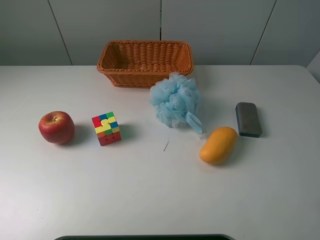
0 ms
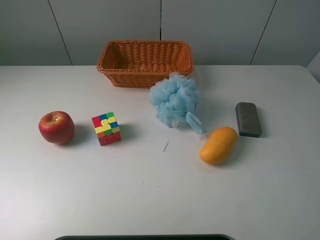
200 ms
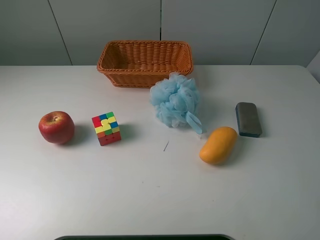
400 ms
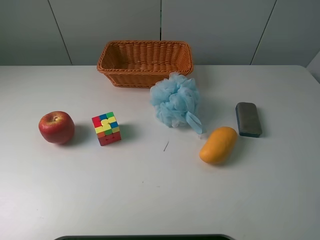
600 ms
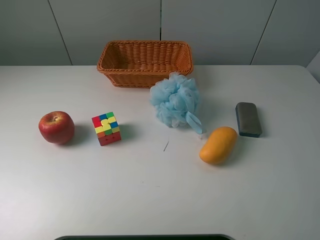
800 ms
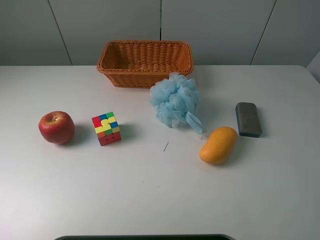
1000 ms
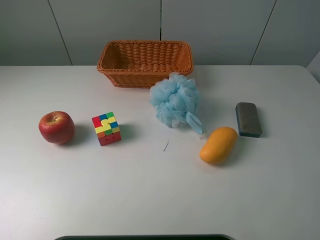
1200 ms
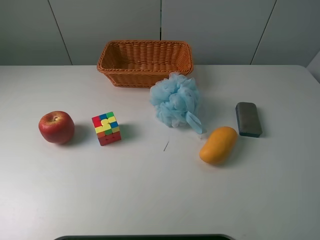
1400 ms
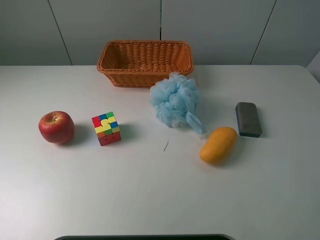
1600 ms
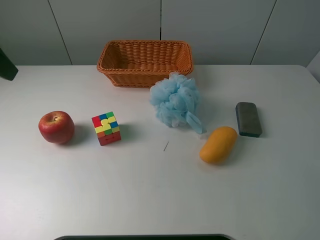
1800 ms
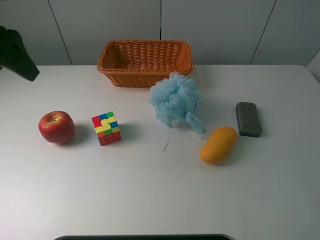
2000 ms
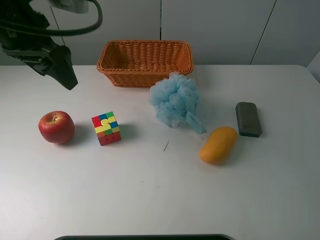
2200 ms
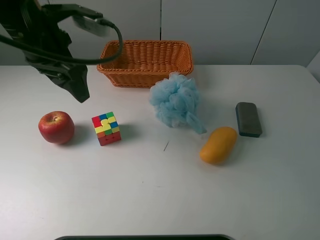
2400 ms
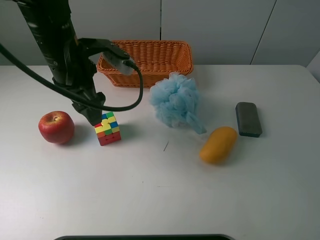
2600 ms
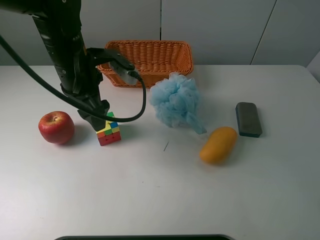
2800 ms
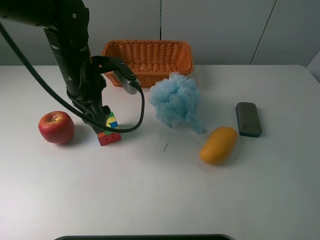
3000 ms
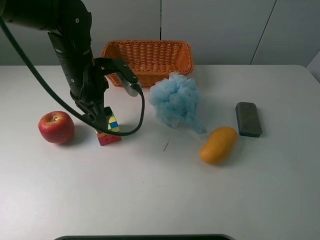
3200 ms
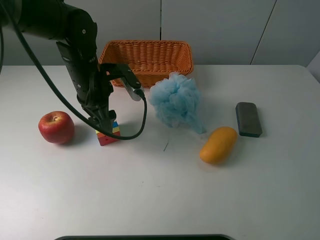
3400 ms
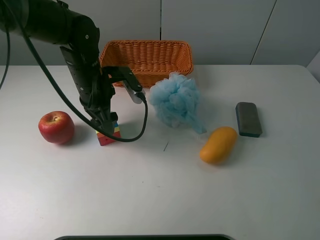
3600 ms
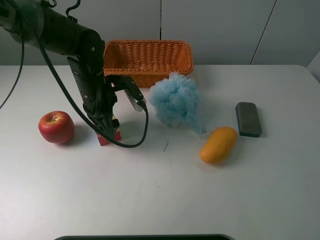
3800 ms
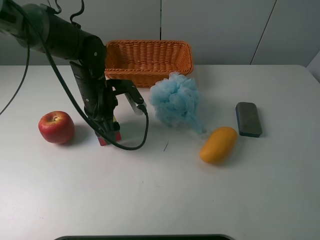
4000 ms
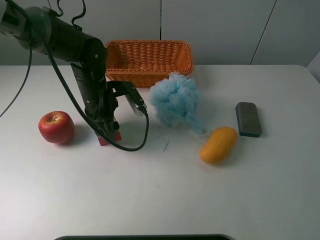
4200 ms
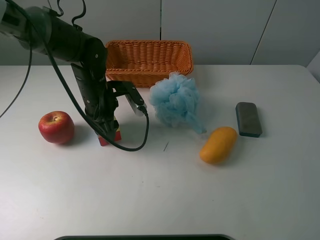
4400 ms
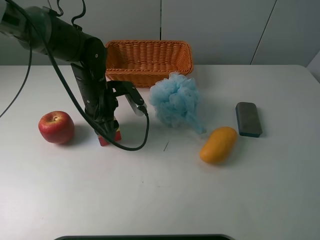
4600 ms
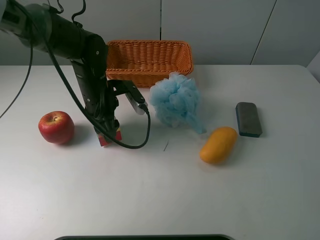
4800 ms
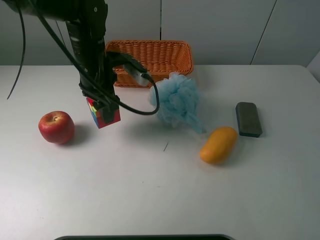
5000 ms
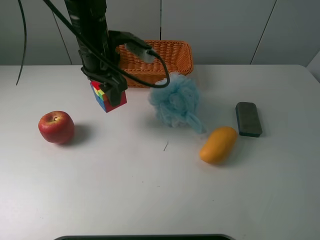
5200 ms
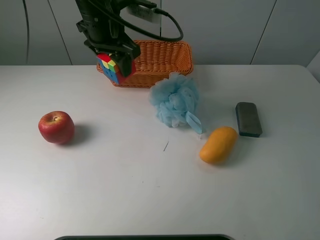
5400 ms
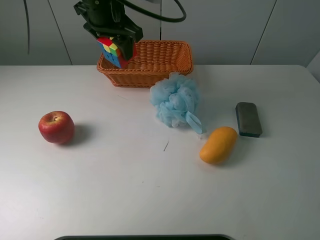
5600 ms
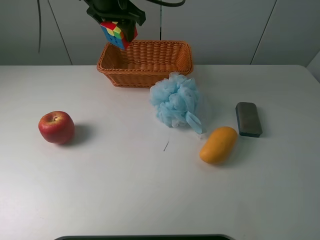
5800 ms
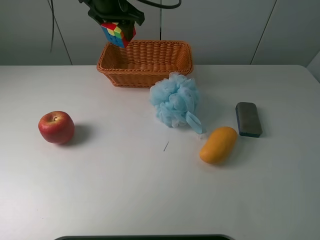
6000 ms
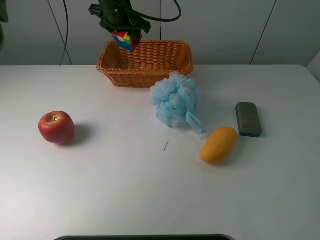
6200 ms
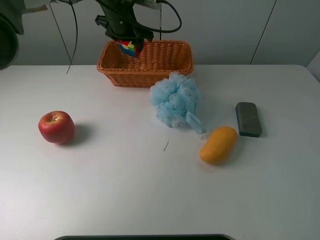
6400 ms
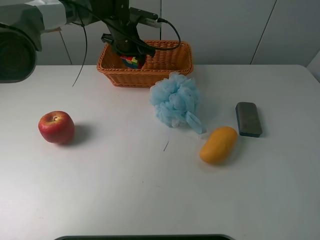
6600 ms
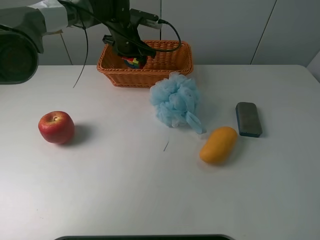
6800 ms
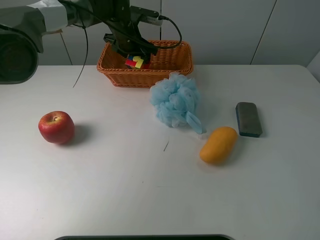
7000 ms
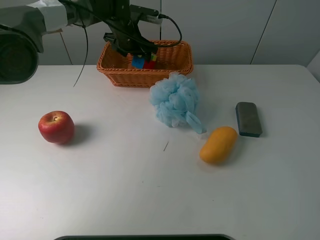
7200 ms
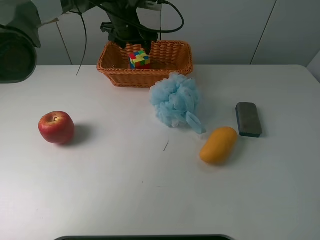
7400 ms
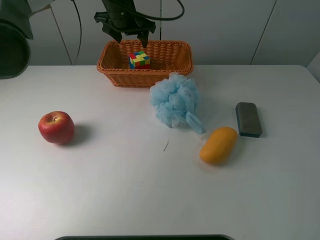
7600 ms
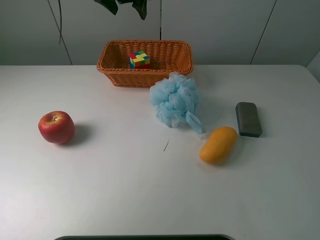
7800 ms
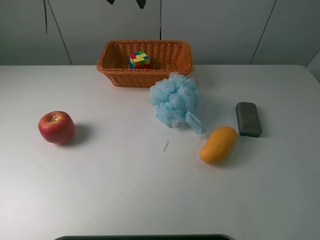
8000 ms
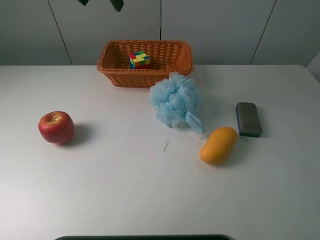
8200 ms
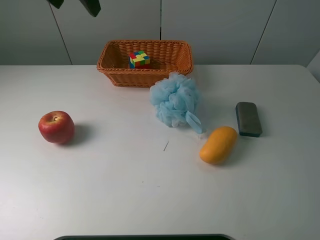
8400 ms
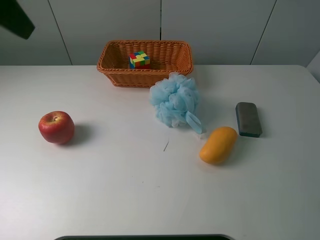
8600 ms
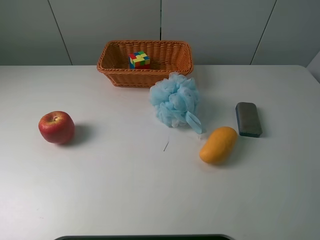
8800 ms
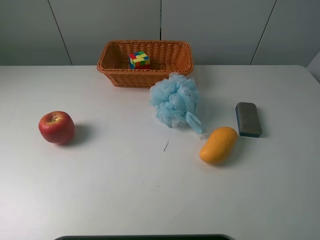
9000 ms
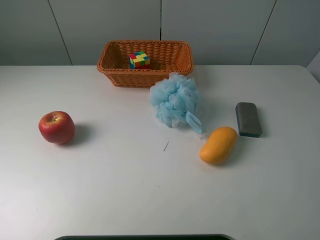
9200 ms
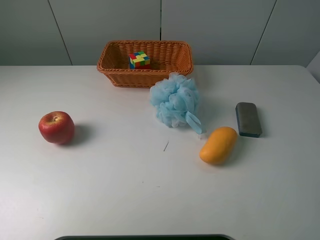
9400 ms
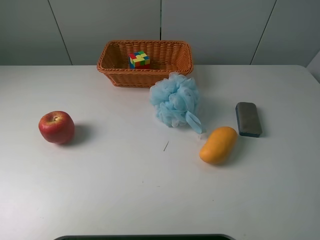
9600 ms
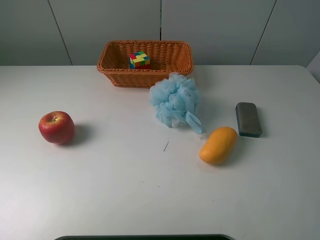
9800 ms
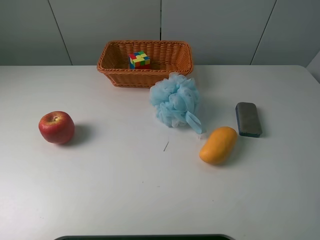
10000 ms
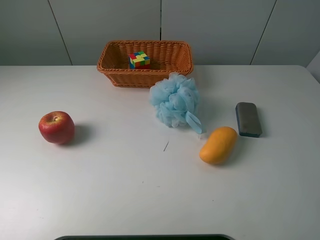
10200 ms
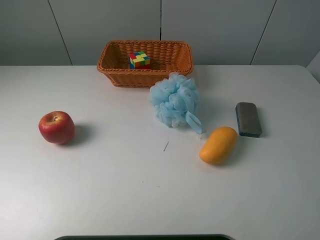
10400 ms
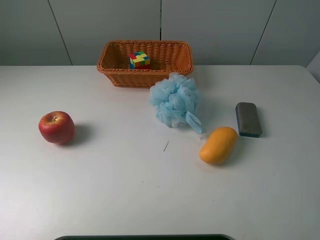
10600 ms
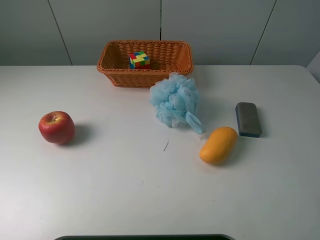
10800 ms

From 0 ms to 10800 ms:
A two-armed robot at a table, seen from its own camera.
Task of the whole recording: use a picker to grab the item closest to the apple and place it in the basket.
Step, from 0 ms to 4400 ms: Grasp the Rubik's Cube with the left gripper.
Step, from 4600 ms to 7400 ms: Place the Rubik's Cube into the basket with the left gripper.
From 1600 ms to 3000 ms: The left gripper is displaced to the right, downward and forward by some 30 cm.
From 3000 ms to 4600 ms: The left gripper is displaced downward by about 5 cm, and closes up.
From 4600 ms to 6200 ms: The left gripper heads forward and upward, covering roughly 20 cm.
From 6200 ms to 7800 ms: The left gripper is displaced upward by some 10 cm, and opens its fingers.
From 7800 ms to 9200 ms: The left gripper travels backward and to the left by about 50 cm.
